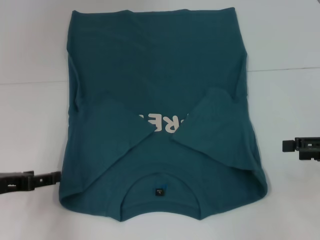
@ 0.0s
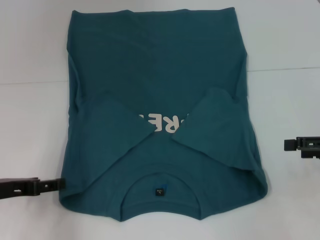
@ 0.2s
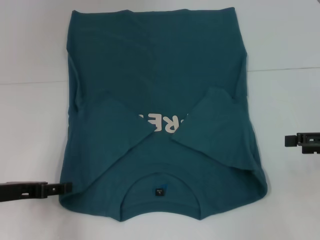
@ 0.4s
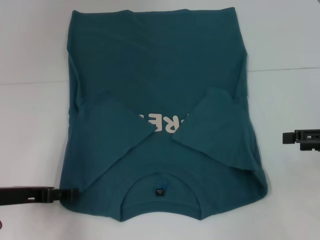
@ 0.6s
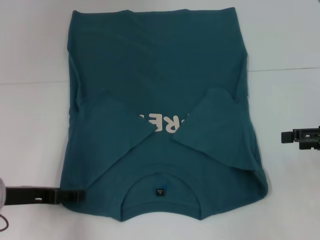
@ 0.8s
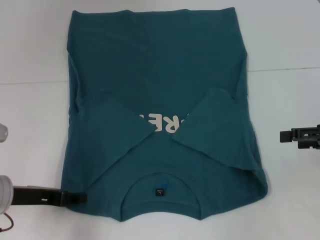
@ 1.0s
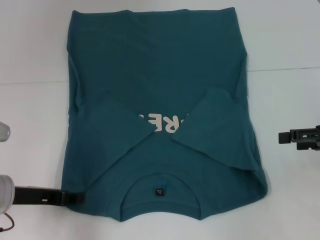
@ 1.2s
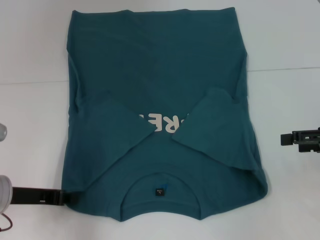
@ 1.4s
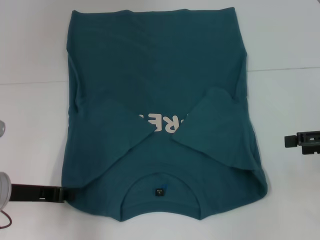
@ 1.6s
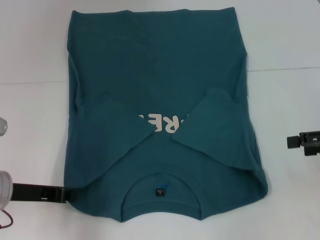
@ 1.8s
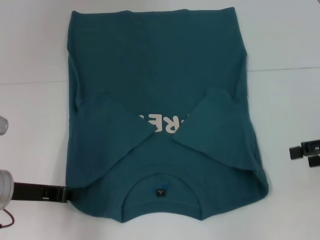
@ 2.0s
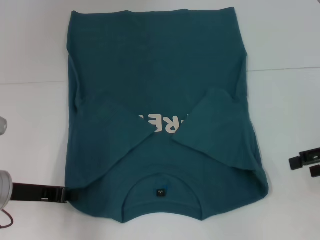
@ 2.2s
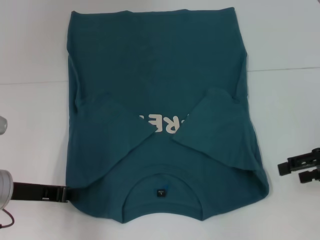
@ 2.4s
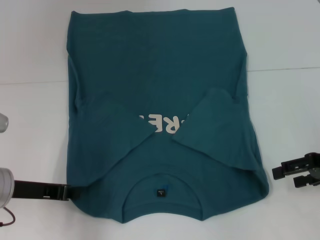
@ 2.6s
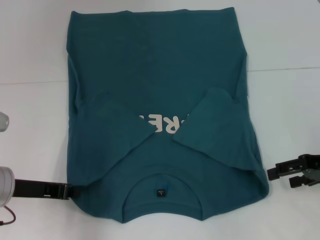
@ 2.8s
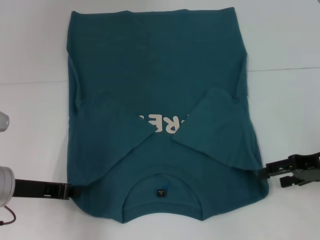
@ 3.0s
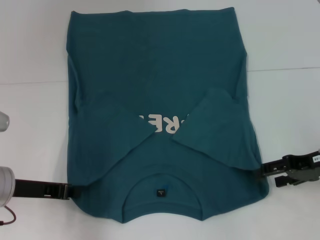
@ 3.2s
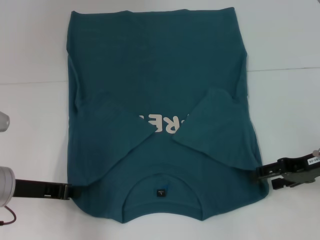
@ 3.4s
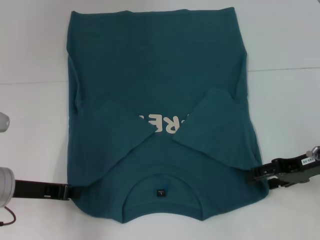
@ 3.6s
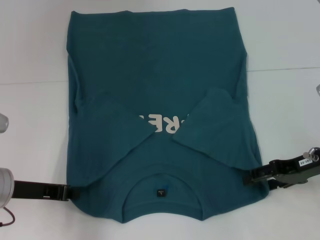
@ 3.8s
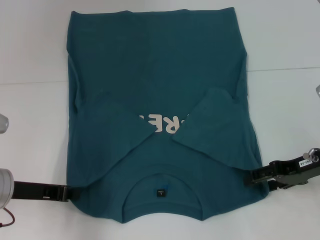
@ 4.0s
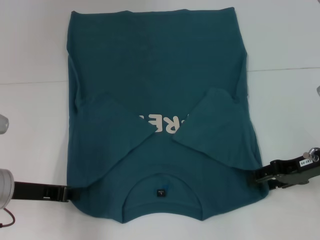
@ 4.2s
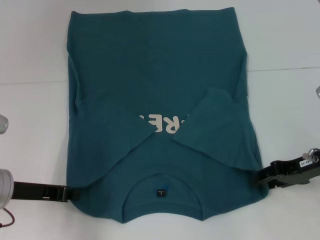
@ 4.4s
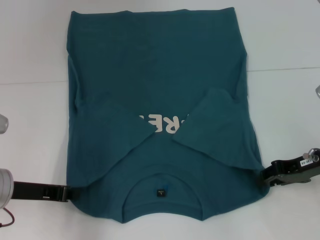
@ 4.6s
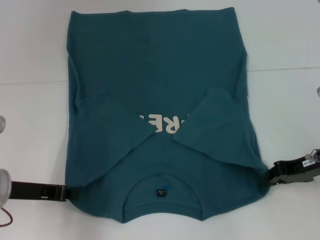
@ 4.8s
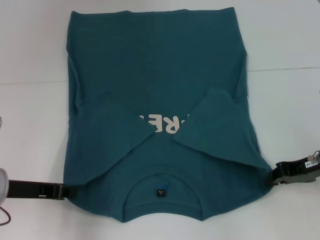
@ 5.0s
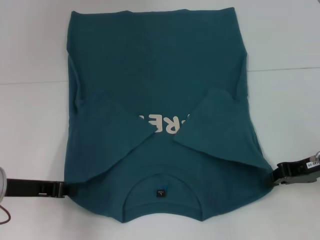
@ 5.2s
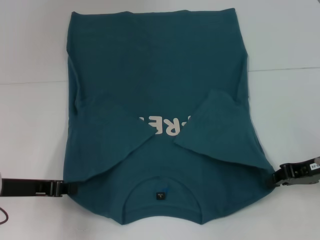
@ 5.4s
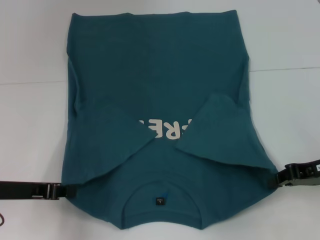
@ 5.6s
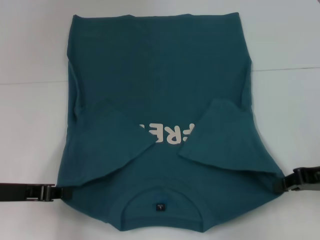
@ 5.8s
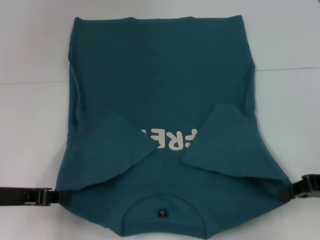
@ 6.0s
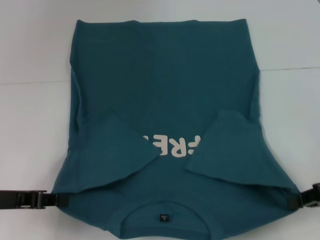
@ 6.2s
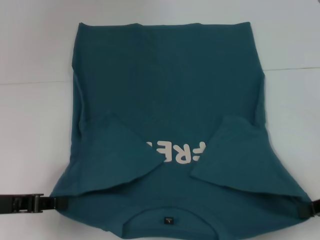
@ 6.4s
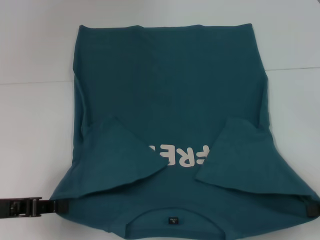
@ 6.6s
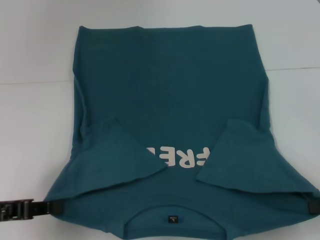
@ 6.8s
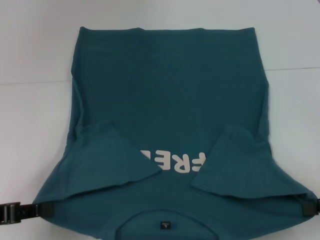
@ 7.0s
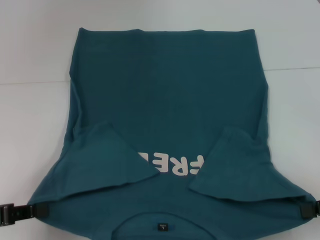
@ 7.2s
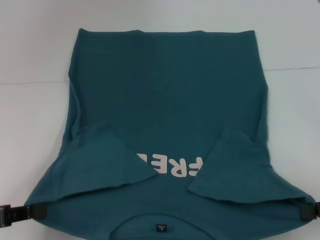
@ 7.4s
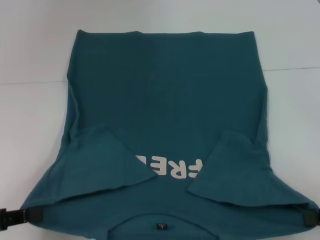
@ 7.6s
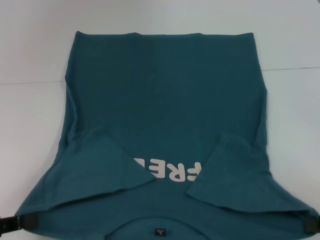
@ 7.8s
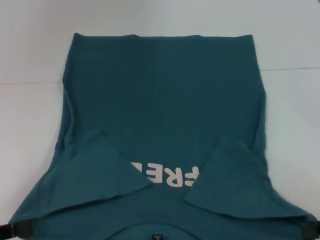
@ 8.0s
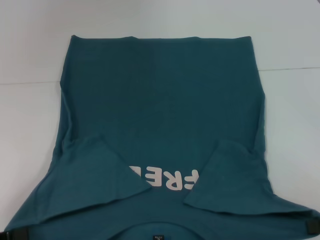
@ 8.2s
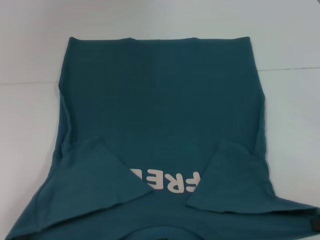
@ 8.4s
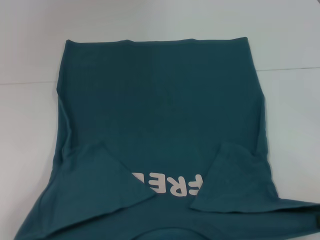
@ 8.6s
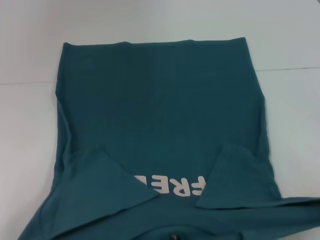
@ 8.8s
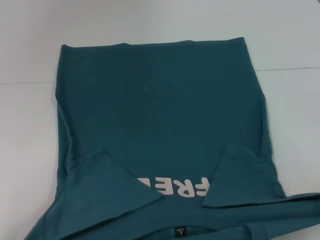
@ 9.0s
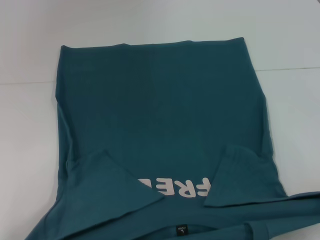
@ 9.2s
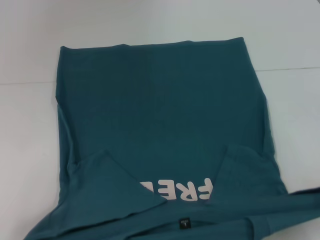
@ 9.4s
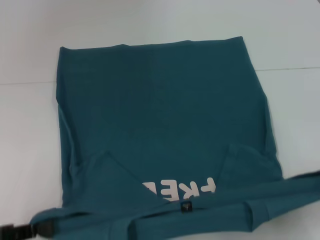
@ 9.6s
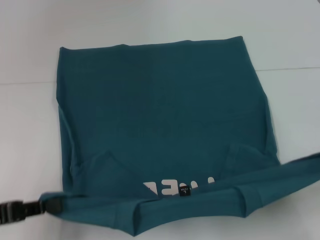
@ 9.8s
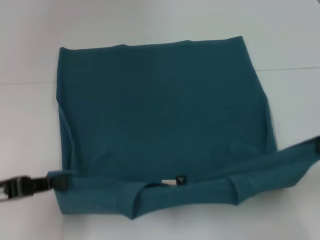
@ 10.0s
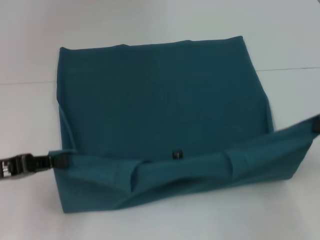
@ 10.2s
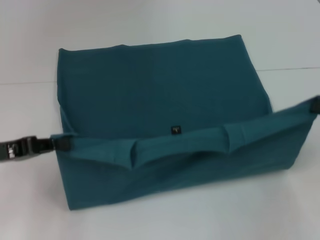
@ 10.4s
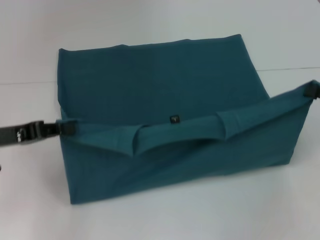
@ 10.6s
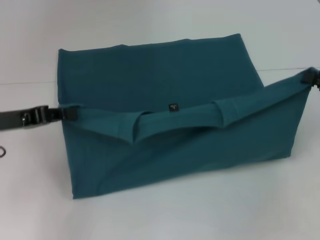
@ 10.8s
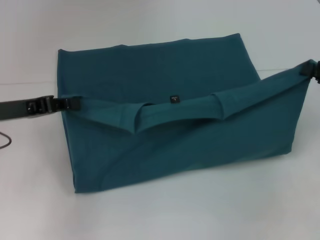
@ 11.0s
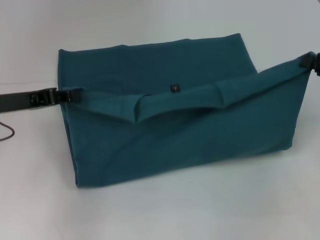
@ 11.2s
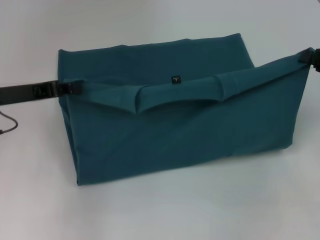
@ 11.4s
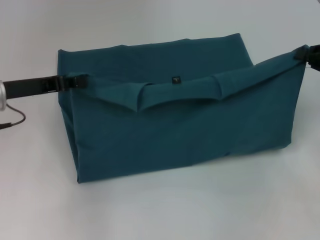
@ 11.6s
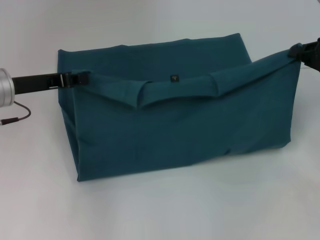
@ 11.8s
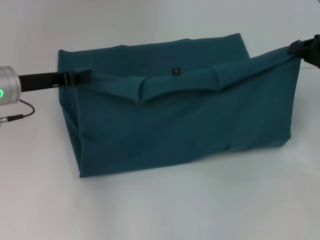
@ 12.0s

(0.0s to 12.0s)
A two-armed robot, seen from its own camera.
Step, 1.4s - 4.6s: Grab the bottom right corner with your right hand.
0.0s - 1.6s: The left gripper closes.
1.6s - 3.0s: The right gripper moves some 5 cm.
3.0s - 4.4s: The grippers move only a little.
4.4s - 6.0s: The right gripper is displaced backward by some 5 cm, and closes.
6.0s - 7.6s: Both grippers move backward, roughly 5 cm.
7.6s - 9.0s: The left gripper goes approximately 5 cm backward.
9.0s - 10.4s: The left gripper is displaced forward by roughly 15 cm, while the right gripper shifts roughly 10 cm forward.
10.4s - 12.0s: The left gripper travels forward and to the right by approximately 10 cm; the right gripper heads forward, covering about 10 cm.

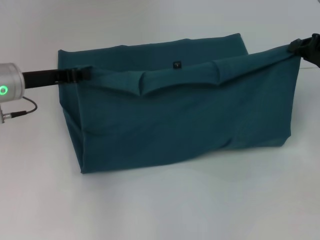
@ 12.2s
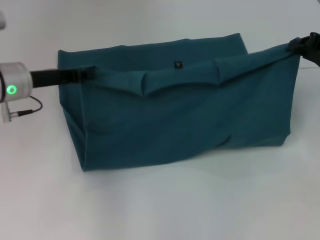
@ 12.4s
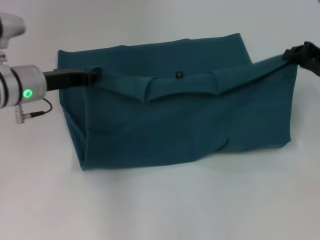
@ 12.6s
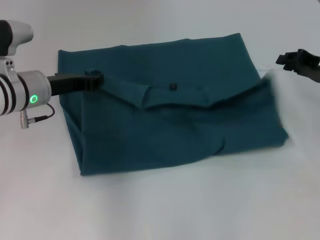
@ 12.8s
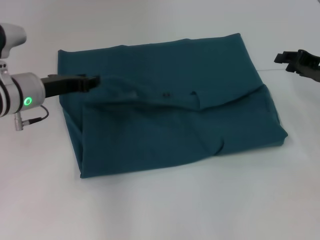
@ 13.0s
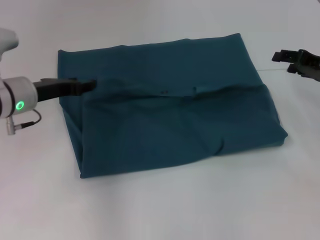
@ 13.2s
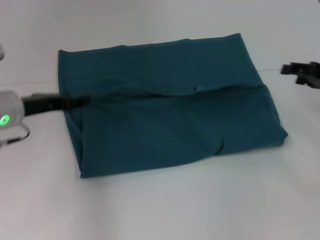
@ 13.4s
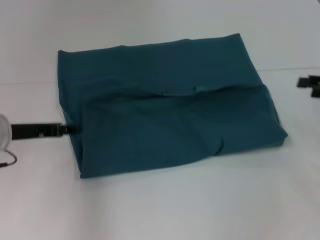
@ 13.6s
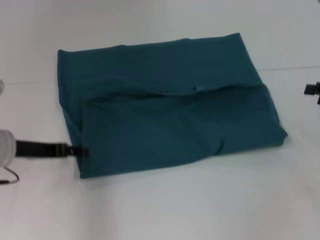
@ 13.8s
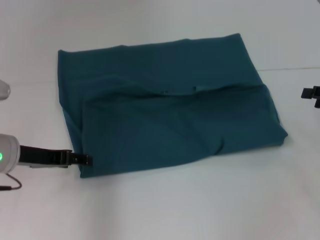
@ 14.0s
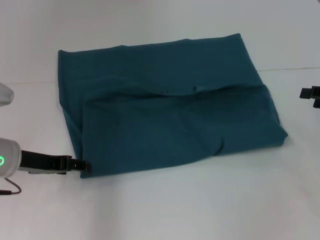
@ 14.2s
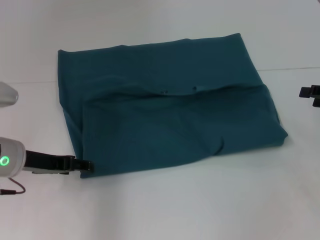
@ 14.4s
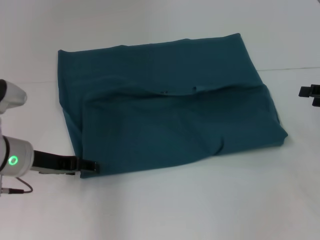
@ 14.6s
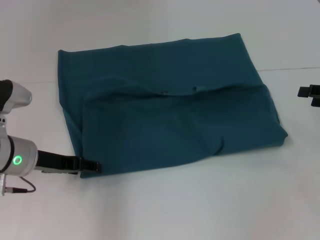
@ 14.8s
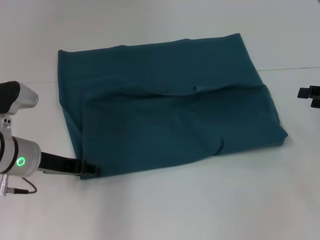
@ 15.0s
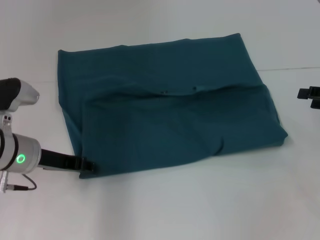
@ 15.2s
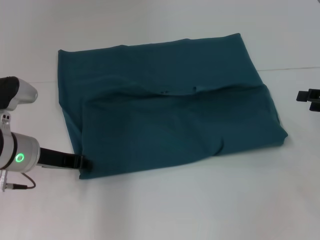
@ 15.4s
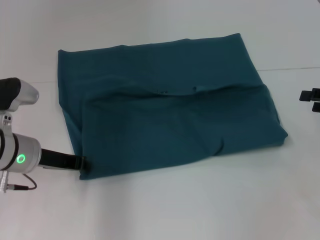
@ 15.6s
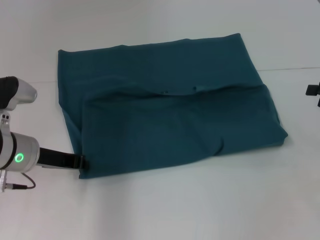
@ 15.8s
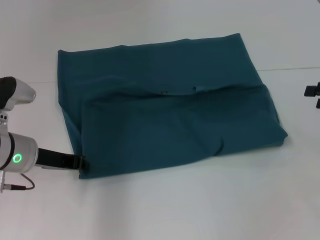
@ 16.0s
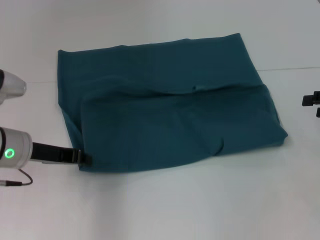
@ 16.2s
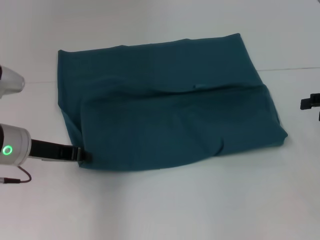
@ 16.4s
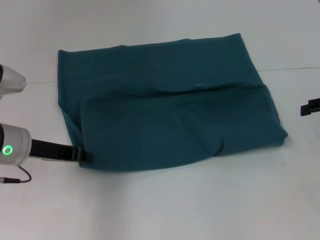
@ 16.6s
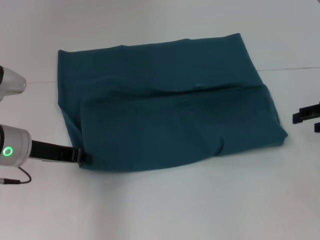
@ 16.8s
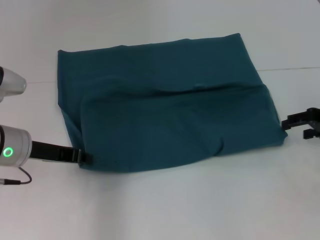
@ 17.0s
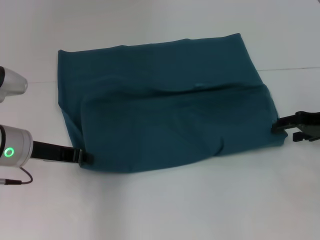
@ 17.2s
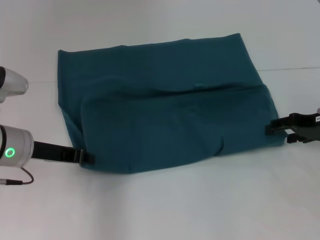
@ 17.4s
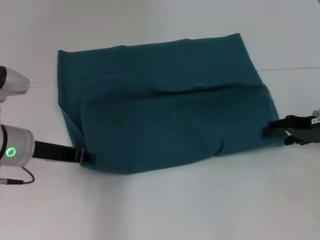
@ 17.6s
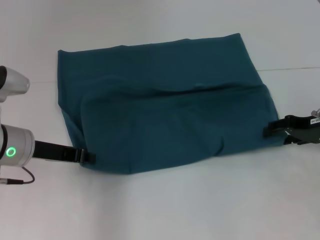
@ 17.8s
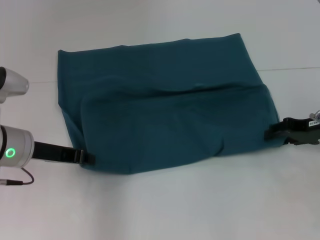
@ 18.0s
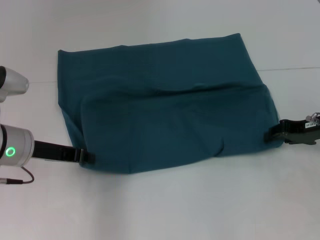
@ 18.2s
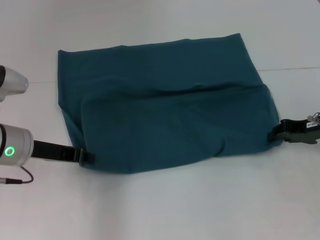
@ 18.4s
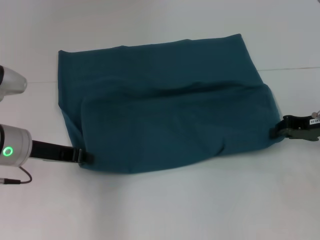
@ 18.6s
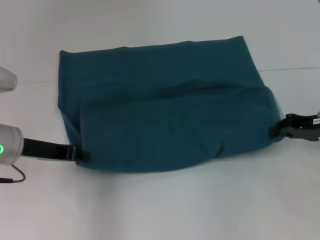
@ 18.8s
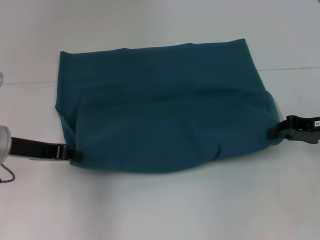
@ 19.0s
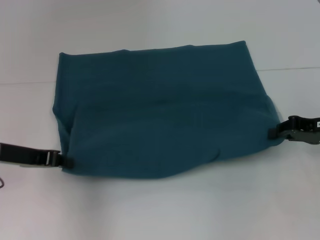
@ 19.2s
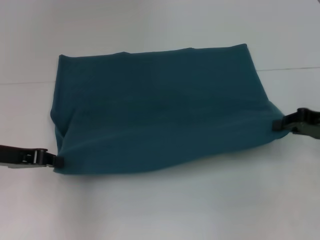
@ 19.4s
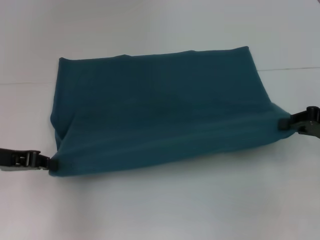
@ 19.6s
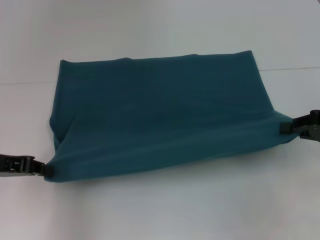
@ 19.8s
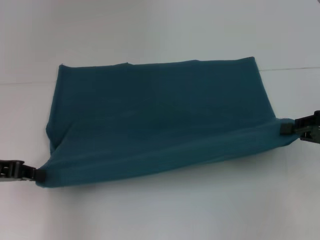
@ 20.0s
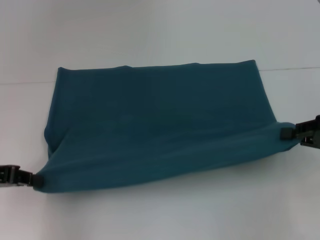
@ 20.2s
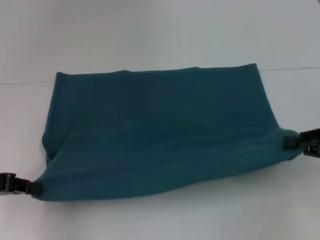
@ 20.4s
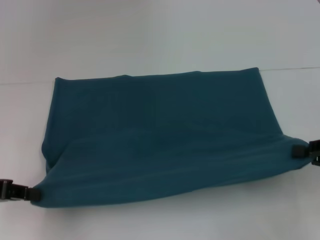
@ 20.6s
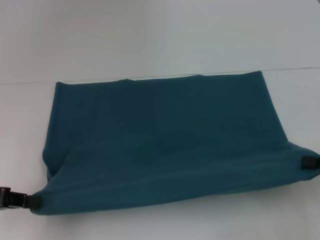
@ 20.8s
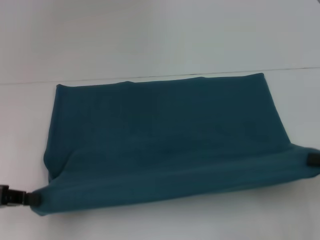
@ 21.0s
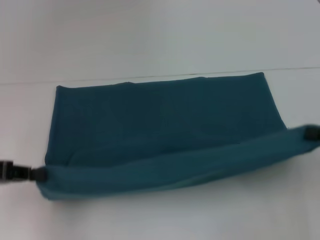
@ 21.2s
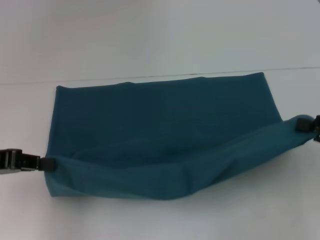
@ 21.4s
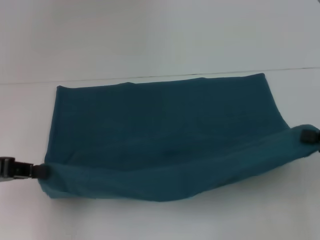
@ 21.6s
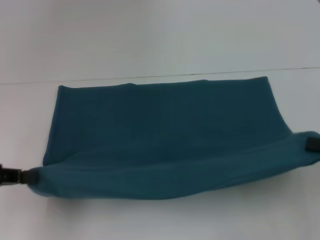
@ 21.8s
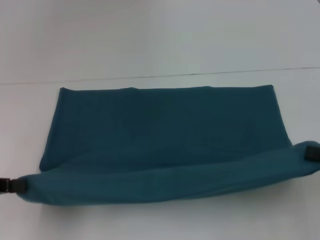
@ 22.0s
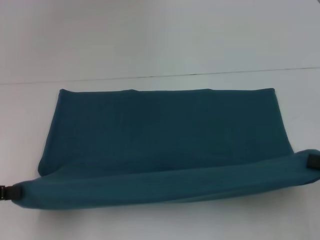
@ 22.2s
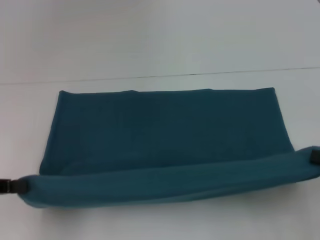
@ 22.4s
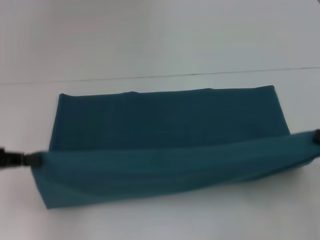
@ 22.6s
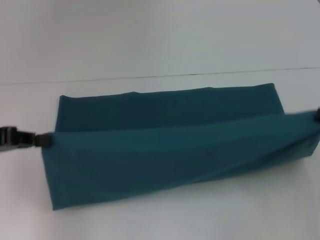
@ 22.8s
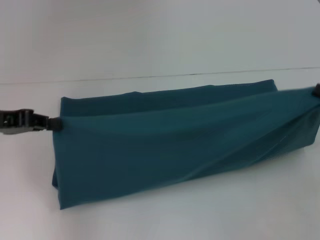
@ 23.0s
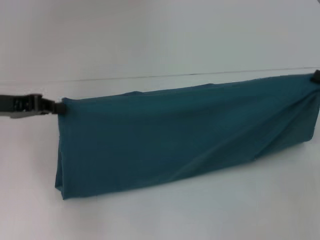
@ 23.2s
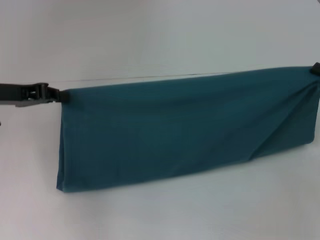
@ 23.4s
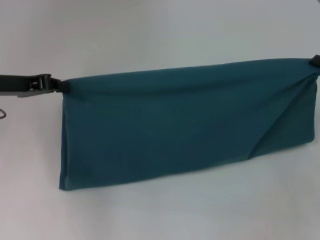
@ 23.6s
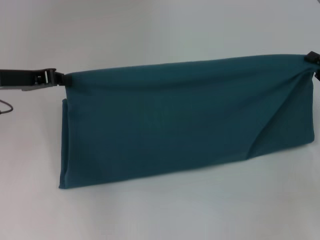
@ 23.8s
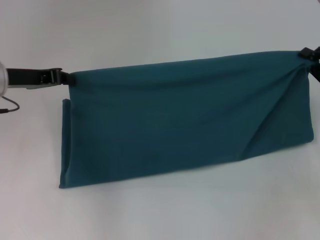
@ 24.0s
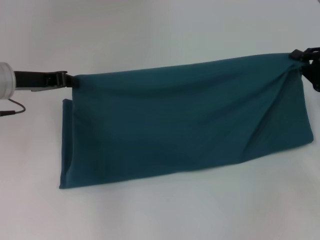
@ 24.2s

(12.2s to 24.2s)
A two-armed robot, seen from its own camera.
Step, 13.4s - 19.2s: Pull the clothes with your left hand.
Step, 13.4s - 19.2s: Pull the clothes with your right hand.
12.2s - 13.8s: Both grippers travel together backward, approximately 5 cm. The right gripper opens its fingers; the left gripper opens its fingers.
13.8s - 15.2s: The grippers move only a little.
15.2s - 16.6s: The left gripper closes up.
16.6s - 18.2s: The right gripper shifts roughly 10 cm downward and to the left.
18.2s - 19.8s: The left gripper travels to the left by approximately 10 cm. The right gripper travels backward by some 5 cm, and closes its fingers.
19.8s - 21.2s: The right gripper travels backward by roughly 5 cm.
21.2s - 22.6s: There are only small adjustments of the grippers.
22.6s - 24.2s: The right gripper heads forward, covering about 15 cm; the left gripper moves forward and to the right, about 15 cm.
